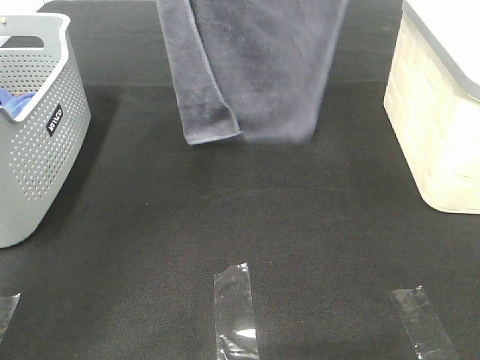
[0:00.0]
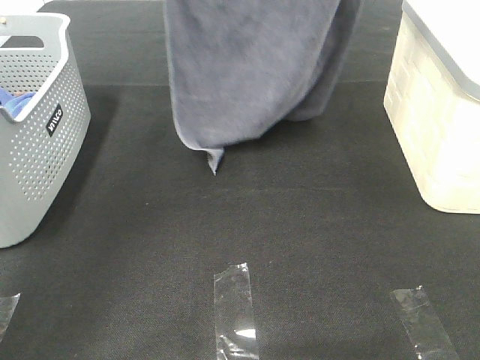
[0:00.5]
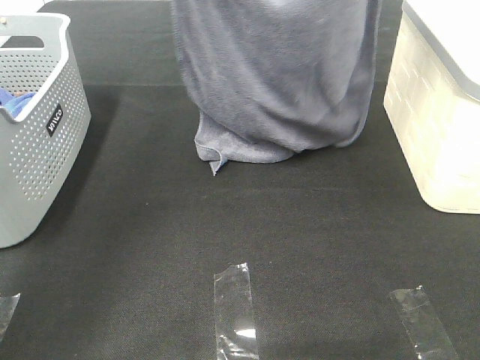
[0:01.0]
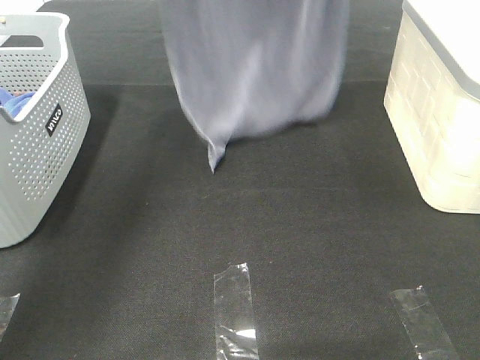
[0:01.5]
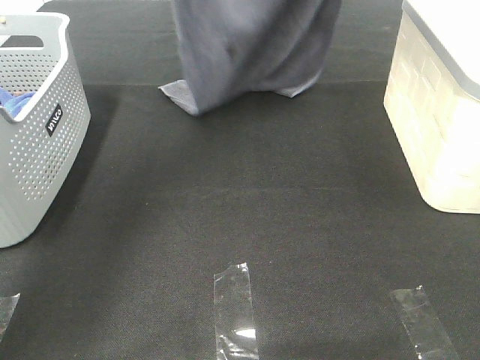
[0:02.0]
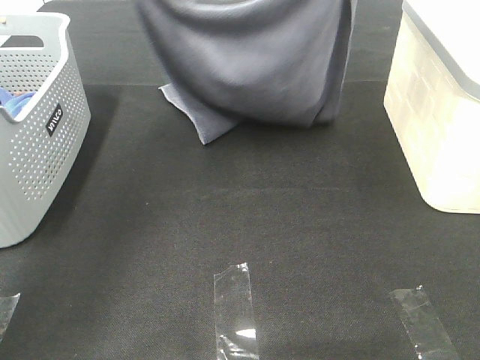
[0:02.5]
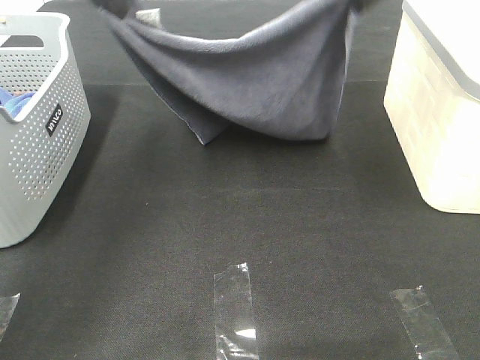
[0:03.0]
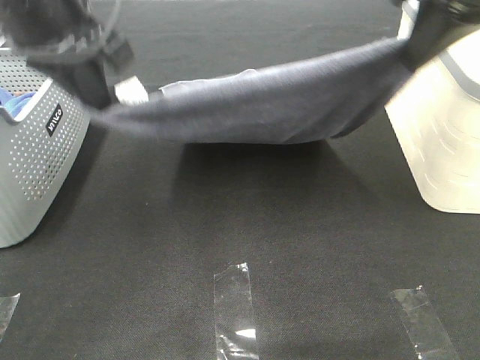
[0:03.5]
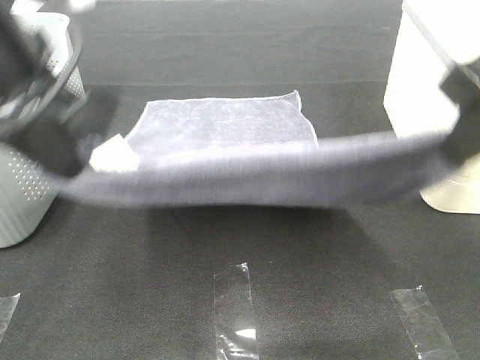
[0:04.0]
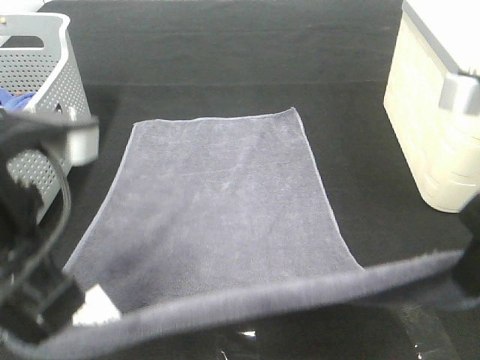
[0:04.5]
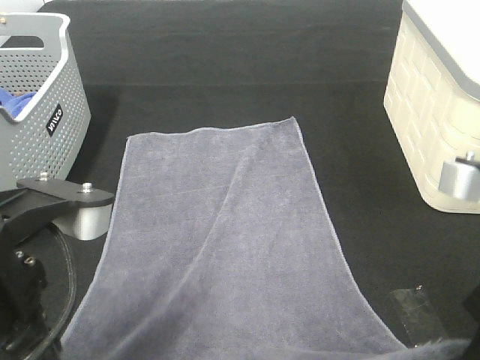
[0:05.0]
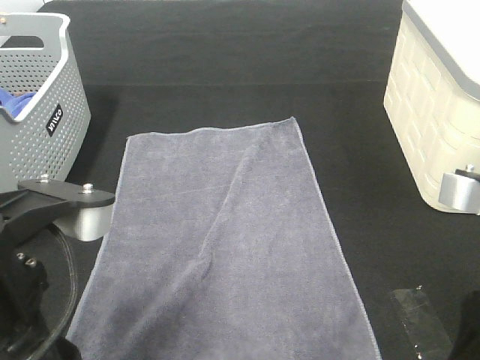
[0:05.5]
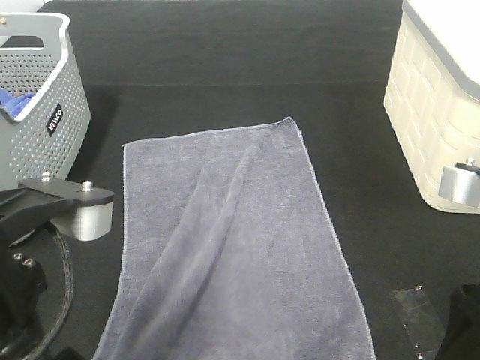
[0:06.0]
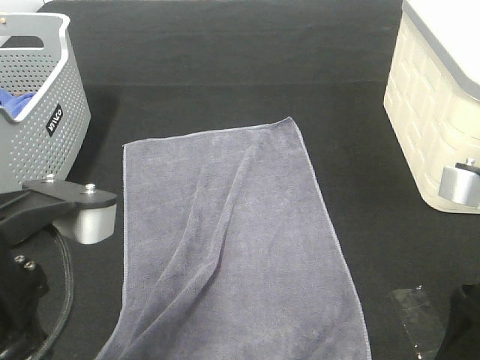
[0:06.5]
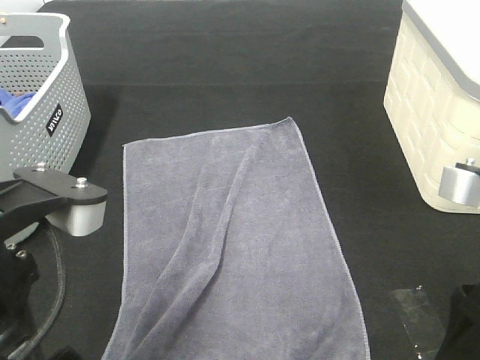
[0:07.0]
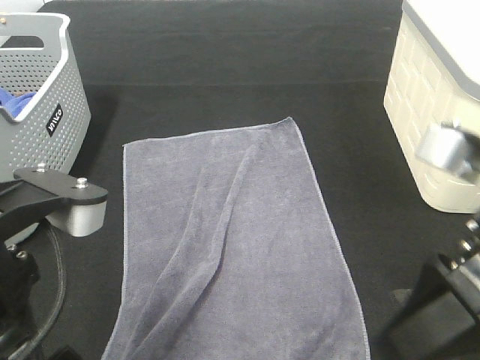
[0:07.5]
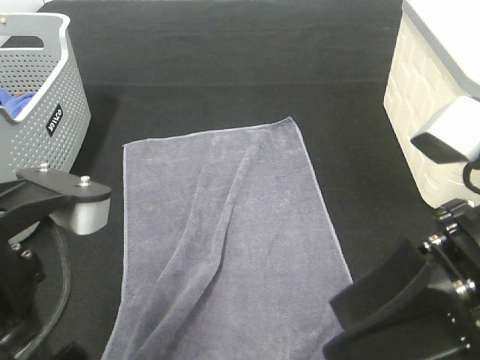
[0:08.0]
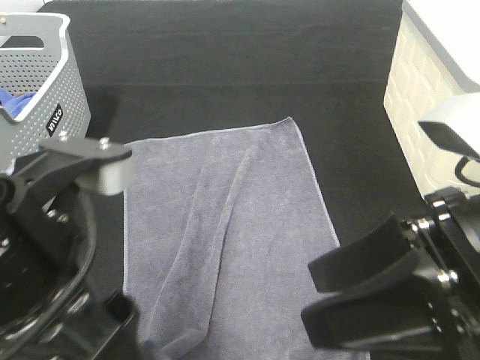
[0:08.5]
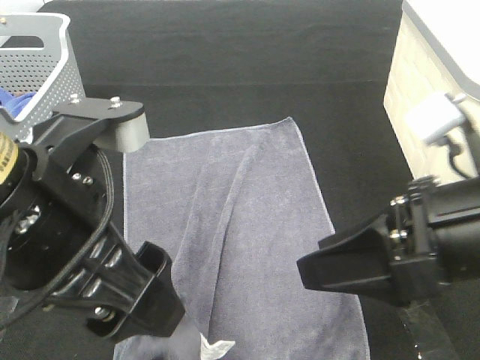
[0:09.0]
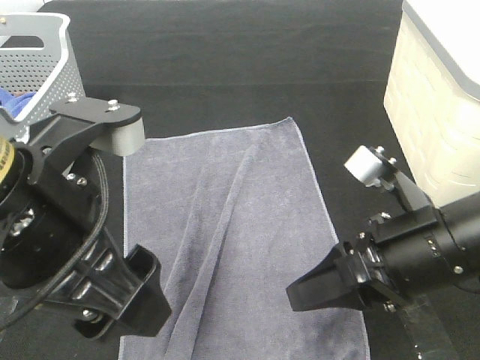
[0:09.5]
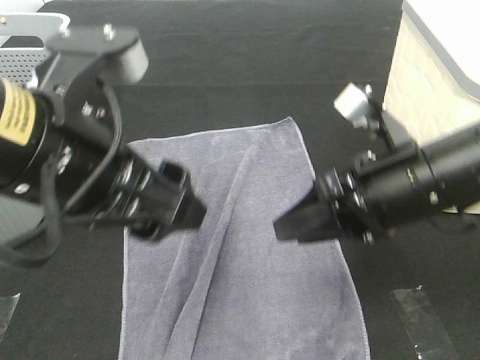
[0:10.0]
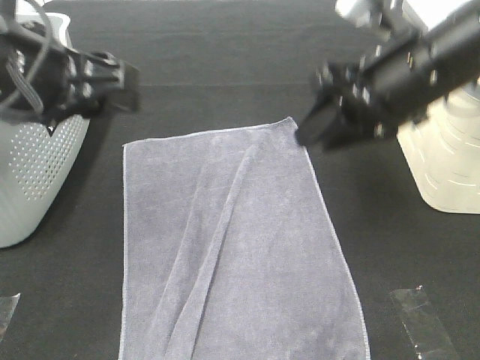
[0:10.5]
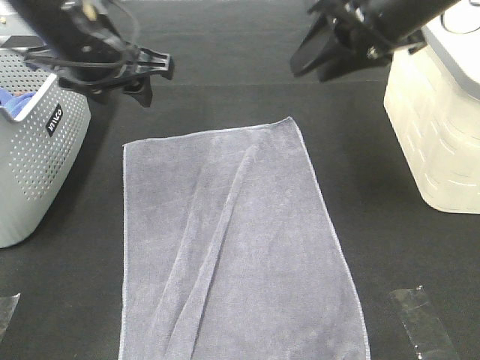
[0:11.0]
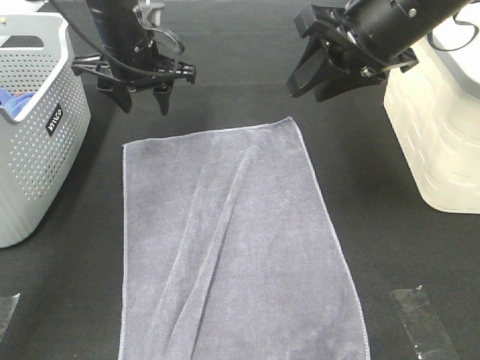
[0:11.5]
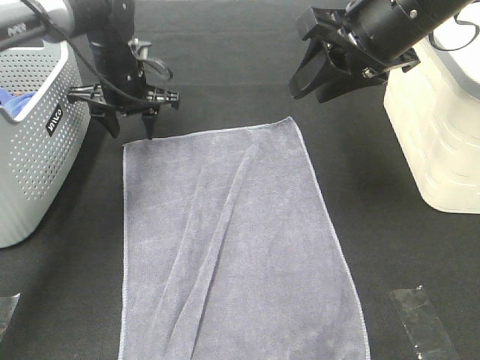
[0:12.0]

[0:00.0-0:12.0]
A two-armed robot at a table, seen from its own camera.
Task of the whole recording: Remove the towel and place it.
Step, 0:00.0 to 0:04.0: Left hand: spread the grey towel flat on the table.
Step, 0:04.5 to 0:12.0: Left hand:adjust the gray towel.
Step, 0:04.5 to 0:12.0: Right hand:adjust the gray towel.
0:00.0 to 0:02.0: The left gripper travels downward and forward by about 10 cm. Meanwhile the right gripper is displaced forward and downward by some 10 cm.
0:02.0 to 0:04.0: The right gripper goes some 25 cm backward and downward; the left gripper moves backward, approximately 25 cm.
0:04.0 to 0:06.0: The right gripper goes about 10 cm downward and backward, and opens. The left gripper travels backward and downward by about 10 cm, and opens its fingers.
0:06.0 to 0:08.0: The left gripper closes and opens again.
0:08.0 to 0:10.0: The right gripper moves forward, approximately 10 cm. The left gripper heads forward, covering some 5 cm.
0:10.0 to 0:12.0: The left gripper goes about 30 cm forward, while the right gripper heads forward and upward, covering roughly 15 cm.

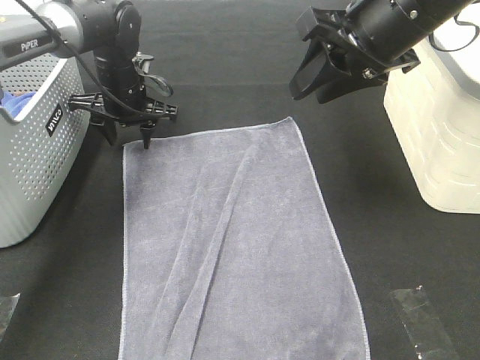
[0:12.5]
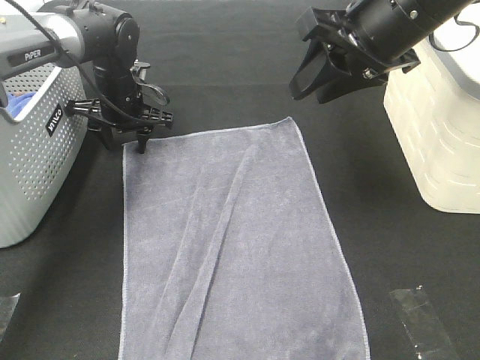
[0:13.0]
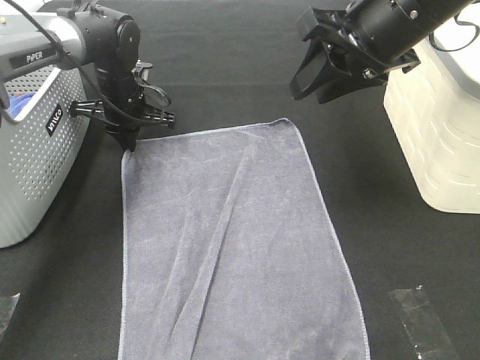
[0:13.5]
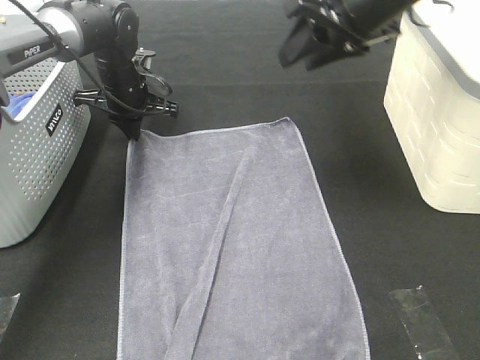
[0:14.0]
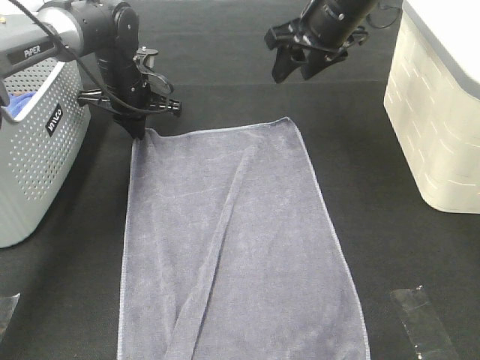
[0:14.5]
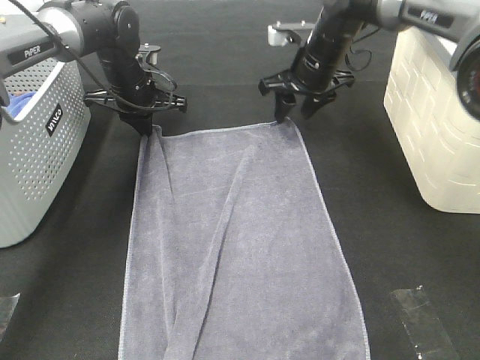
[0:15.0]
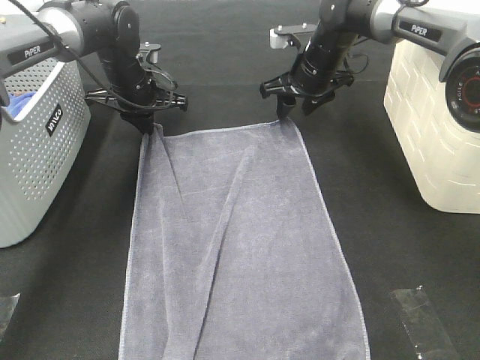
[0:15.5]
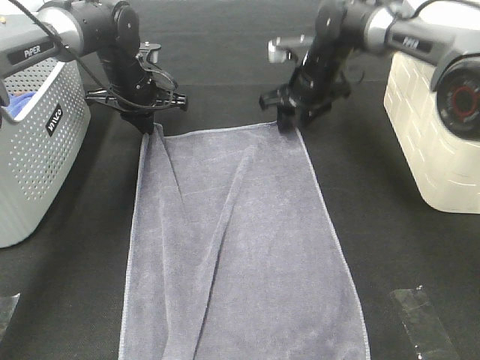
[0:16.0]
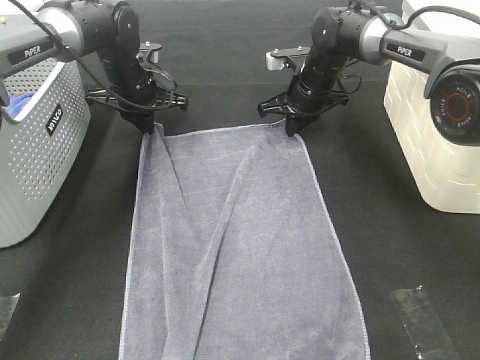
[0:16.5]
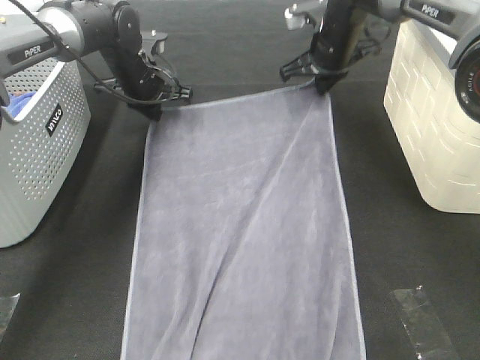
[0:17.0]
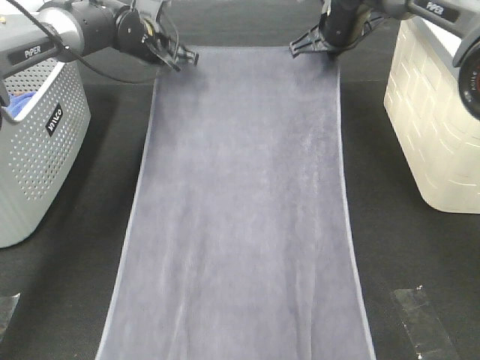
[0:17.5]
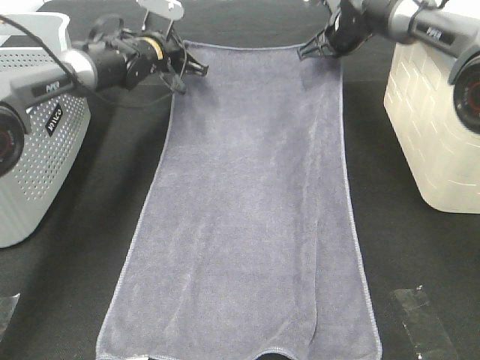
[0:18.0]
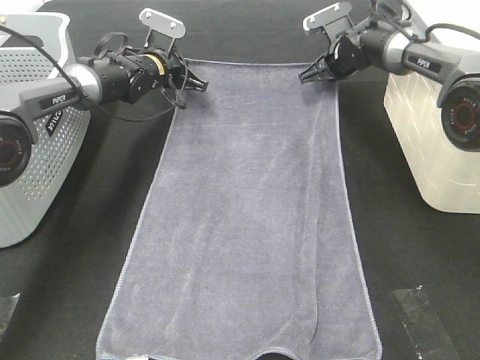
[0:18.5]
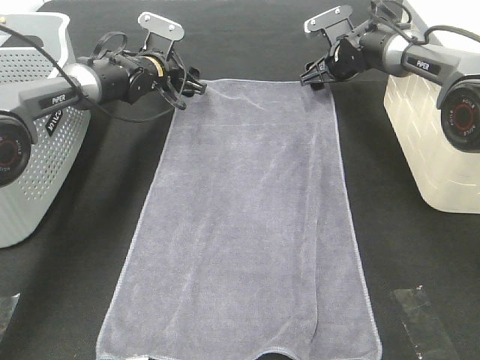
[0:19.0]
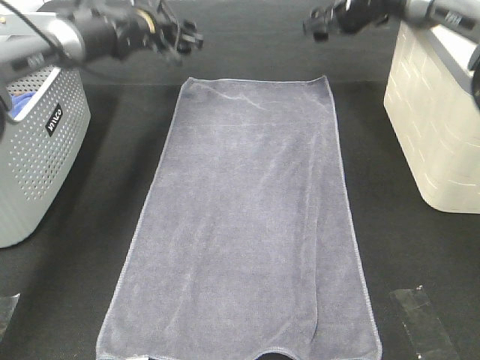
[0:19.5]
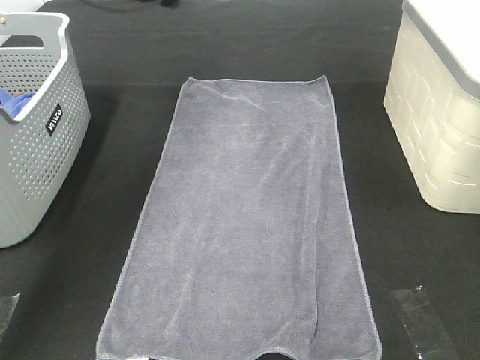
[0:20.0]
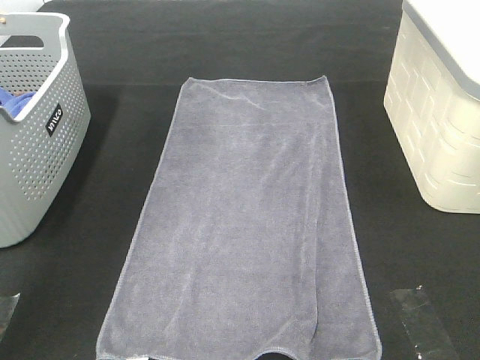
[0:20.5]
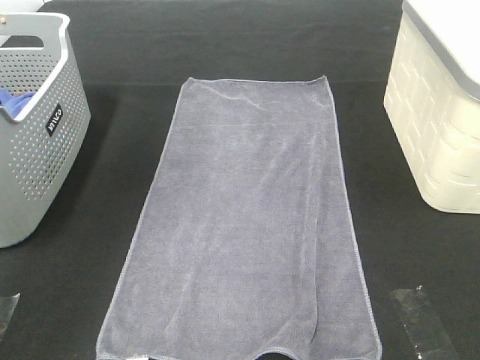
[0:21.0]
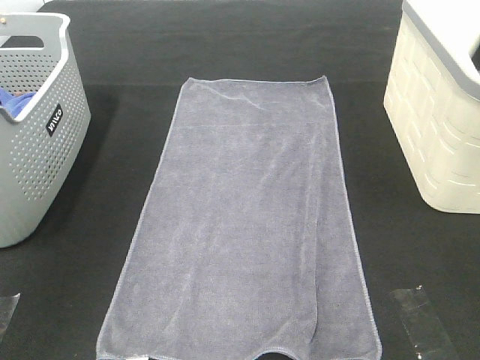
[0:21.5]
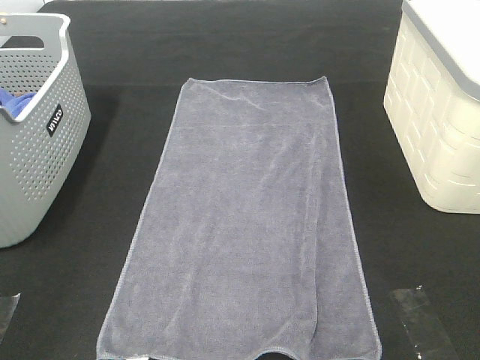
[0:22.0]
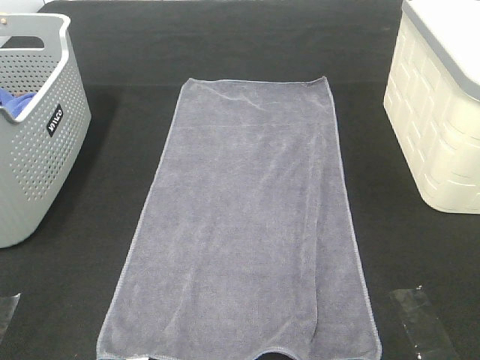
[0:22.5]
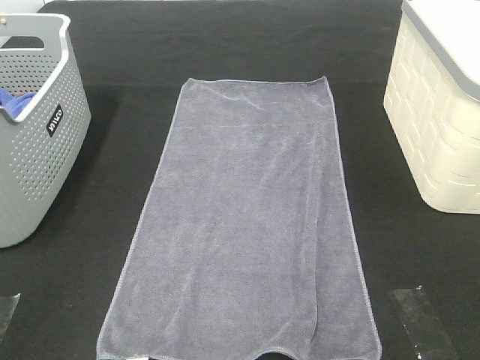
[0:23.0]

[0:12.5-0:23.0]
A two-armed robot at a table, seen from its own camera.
Task of the whole recording: Remove the towel and place it.
0:12.5 to 0:14.5: The left gripper closes up; the right gripper shifts about 15 cm forward.
0:14.5 to 0:16.5: The right gripper travels downward and forward by roughly 15 cm, and closes.
0:16.5 to 0:19.0: The left gripper heads forward, covering approximately 5 cm, and opens its fingers. Meanwhile the right gripper moves forward and to the right, about 10 cm, moves approximately 10 cm upward and comes back, and opens.
0:19.0 to 0:21.0: The grippers both shift upward and backward by some 40 cm.
0:21.0 to 0:23.0: The left gripper is displaced backward and downward by about 40 cm.

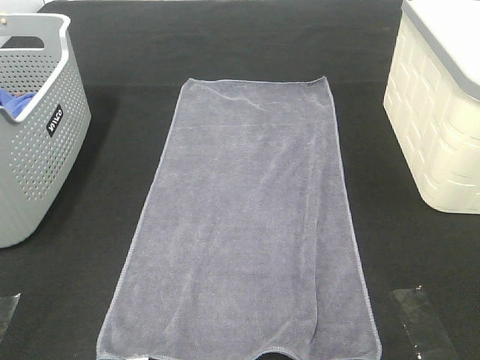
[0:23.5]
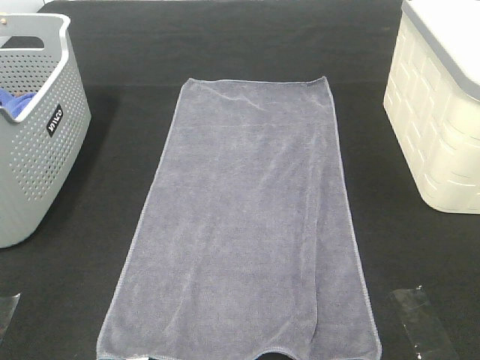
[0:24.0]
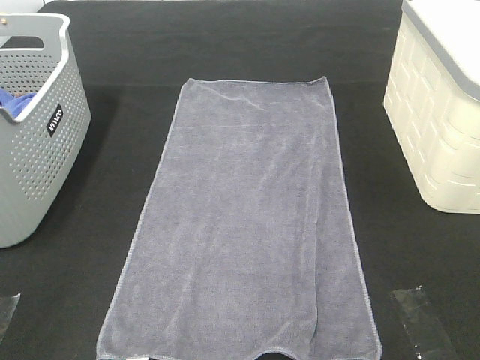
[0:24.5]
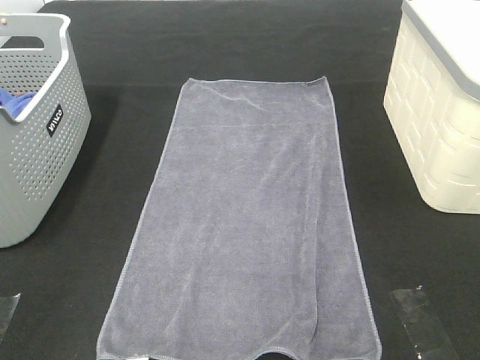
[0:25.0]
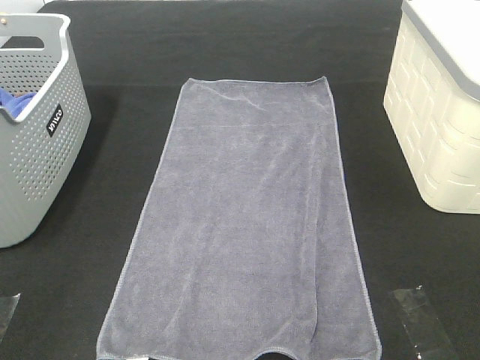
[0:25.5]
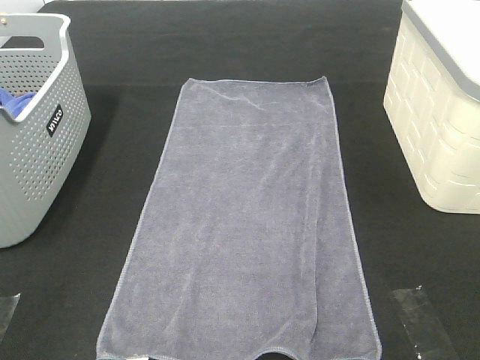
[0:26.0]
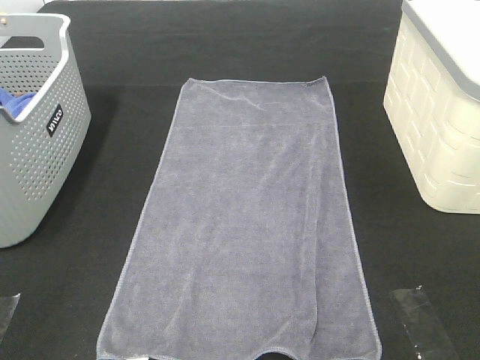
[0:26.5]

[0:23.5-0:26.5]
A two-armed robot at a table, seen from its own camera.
Task of the whole recording: Remove the towel and place it.
0:25.0 to 0:26.5: Neither gripper changes place.
